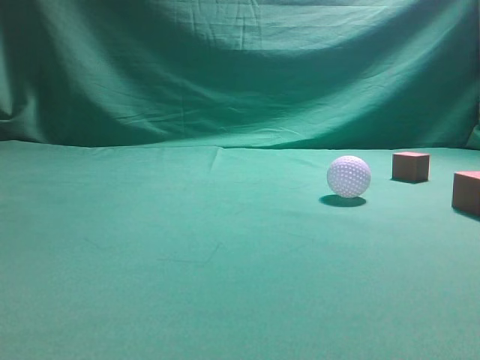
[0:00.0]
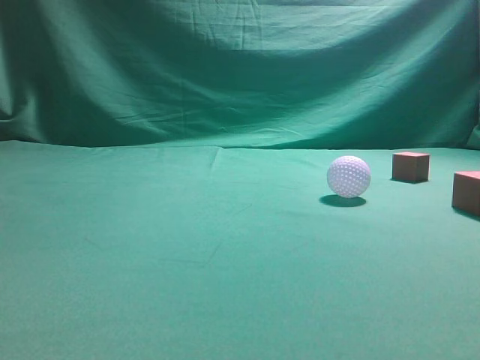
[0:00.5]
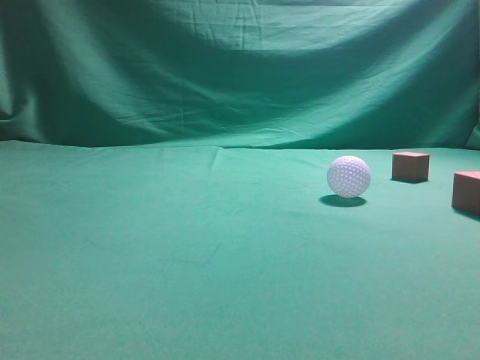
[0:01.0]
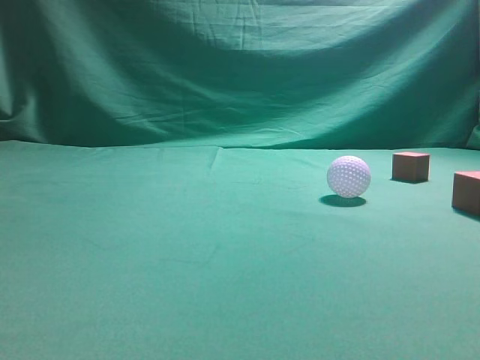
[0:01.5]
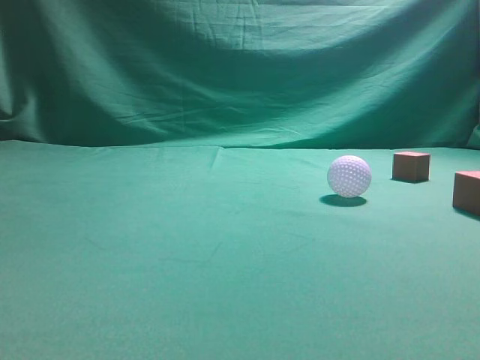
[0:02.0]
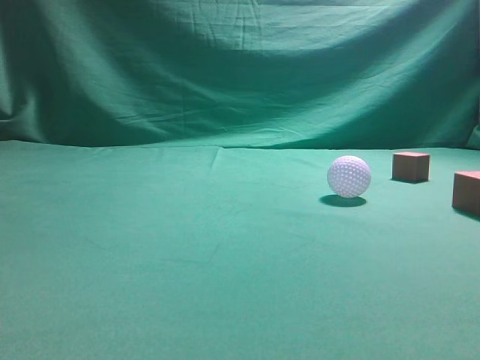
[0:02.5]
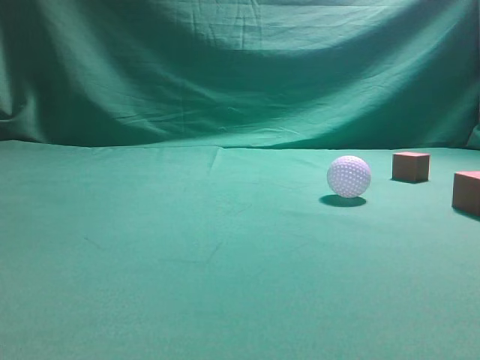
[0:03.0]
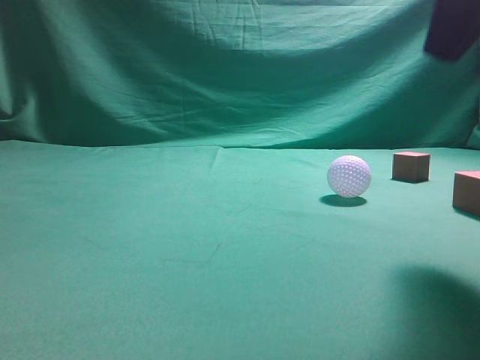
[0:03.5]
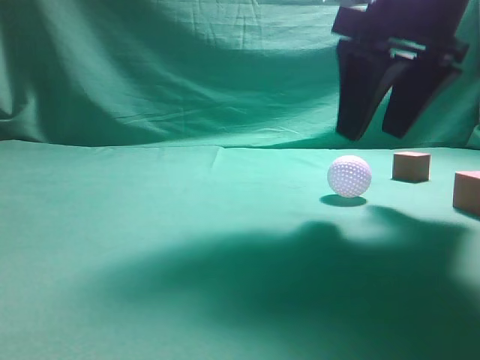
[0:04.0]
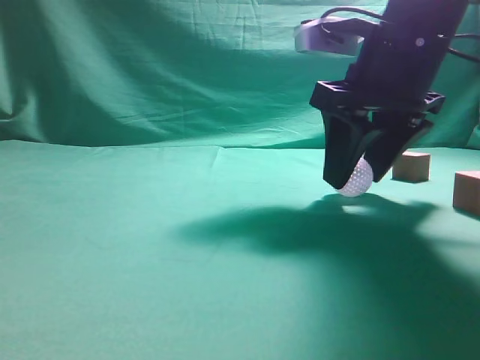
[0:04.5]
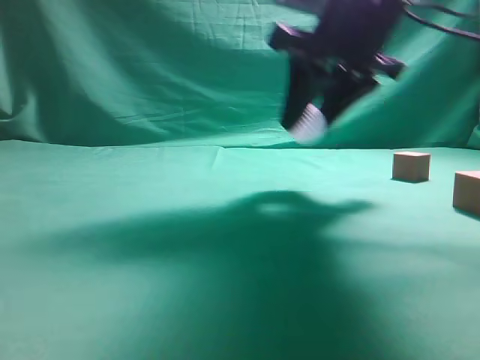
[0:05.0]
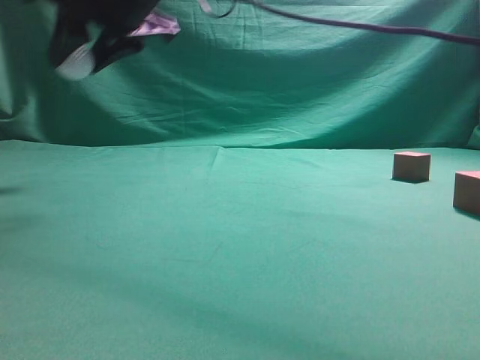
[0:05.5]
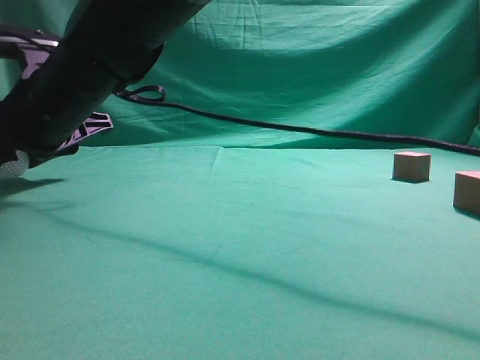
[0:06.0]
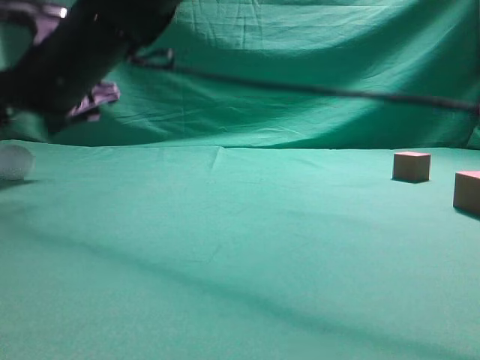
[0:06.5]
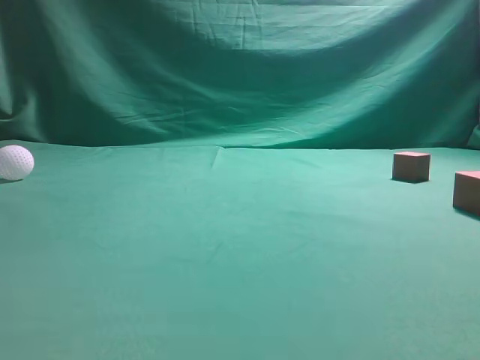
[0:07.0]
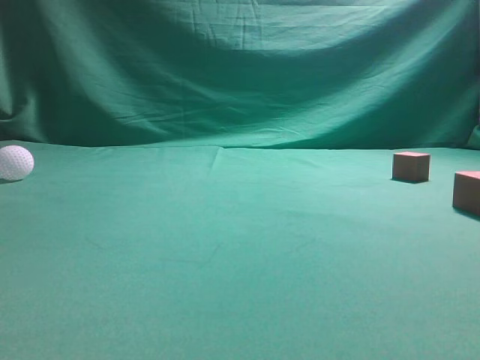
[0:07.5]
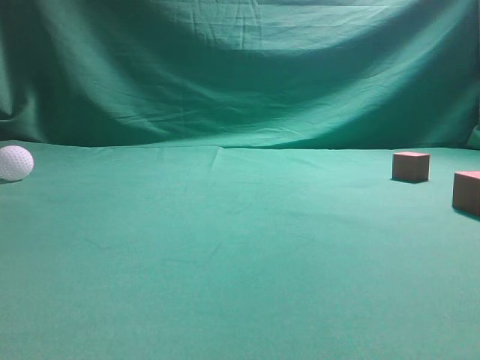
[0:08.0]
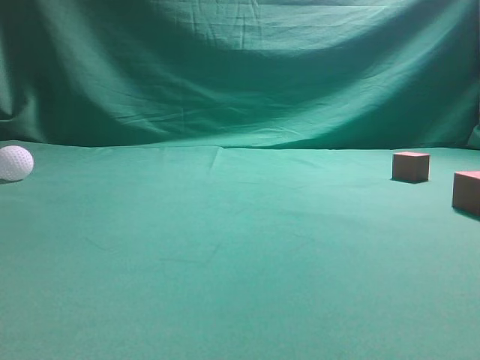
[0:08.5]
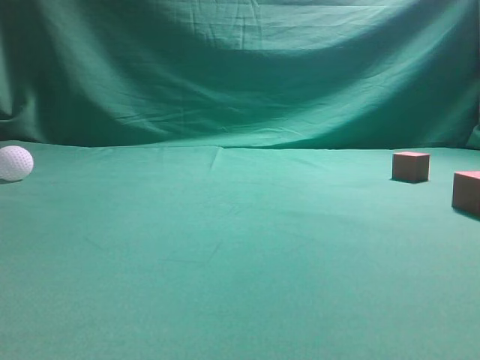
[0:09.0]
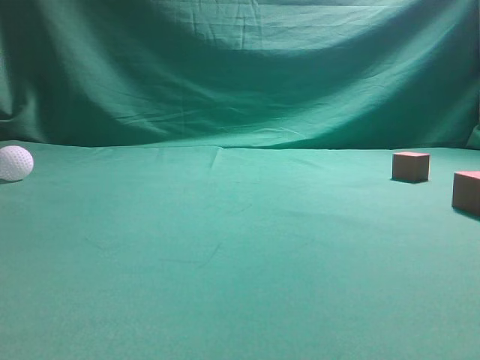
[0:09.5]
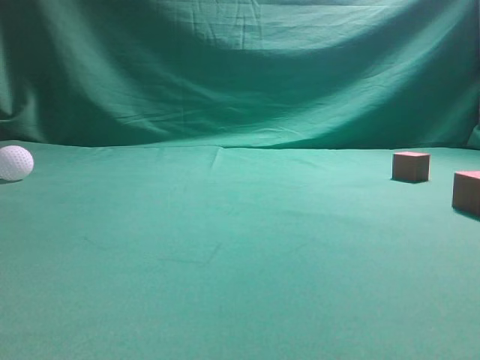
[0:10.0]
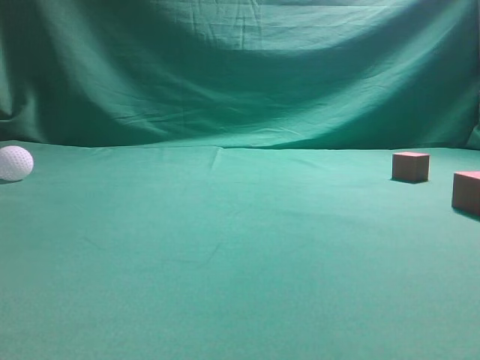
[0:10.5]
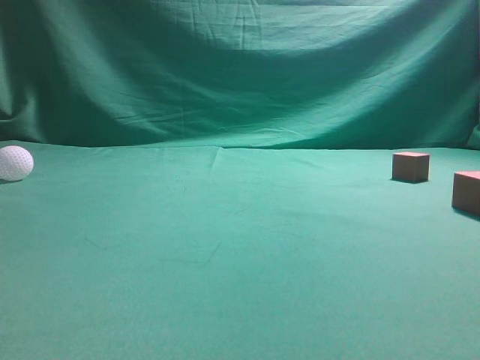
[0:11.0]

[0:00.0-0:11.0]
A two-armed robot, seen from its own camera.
Step, 0:00.0 to 0:05.0: Grasp the spherical object on the right side.
0:02.0 to 0:03.5: The right gripper goes some 25 cm forward and to the left.
0:03.5 to 0:05.5: The right gripper is displaced to the left by roughly 30 cm, and opens.
0:05.5 to 0:07.5: The right gripper goes approximately 30 cm upward and to the right, and closes up.
